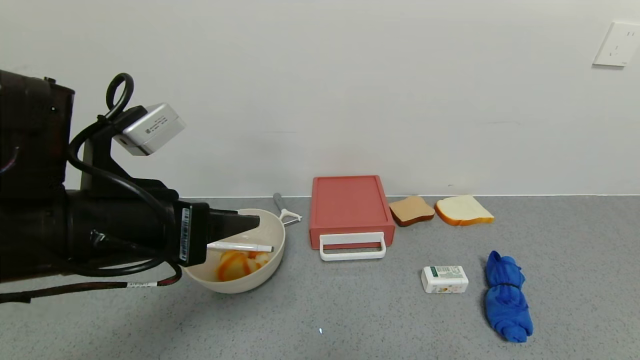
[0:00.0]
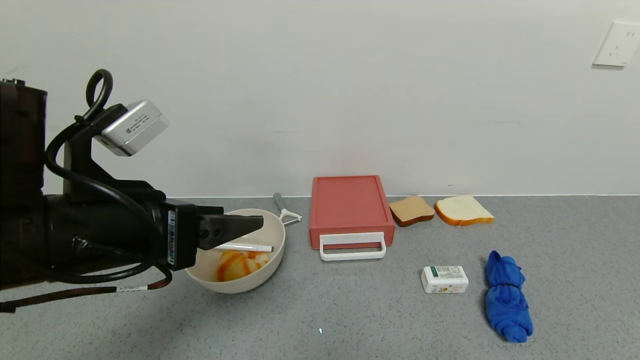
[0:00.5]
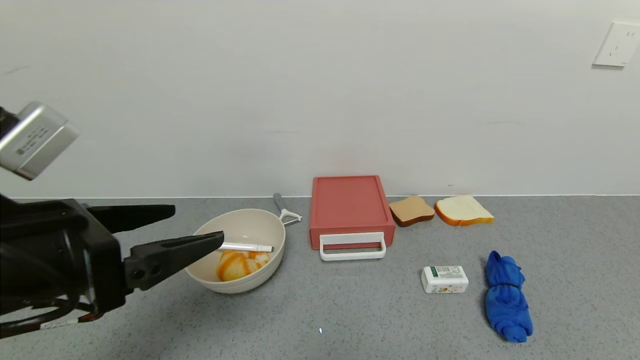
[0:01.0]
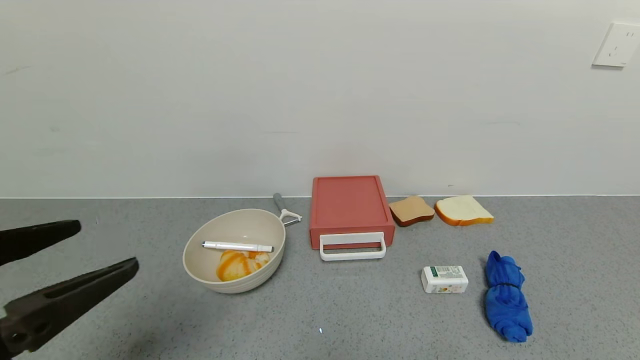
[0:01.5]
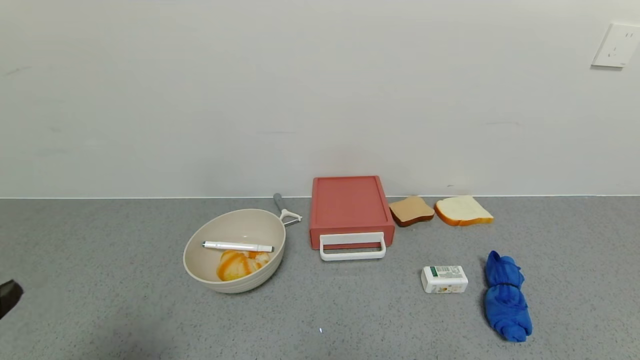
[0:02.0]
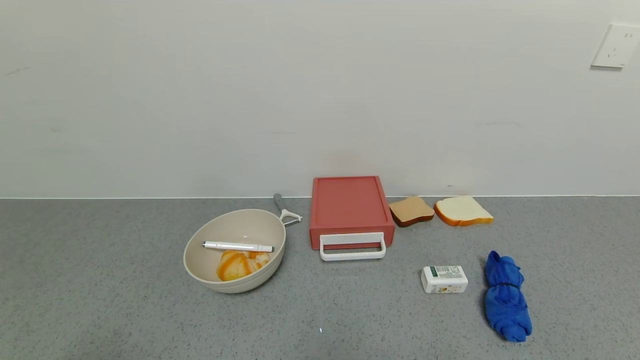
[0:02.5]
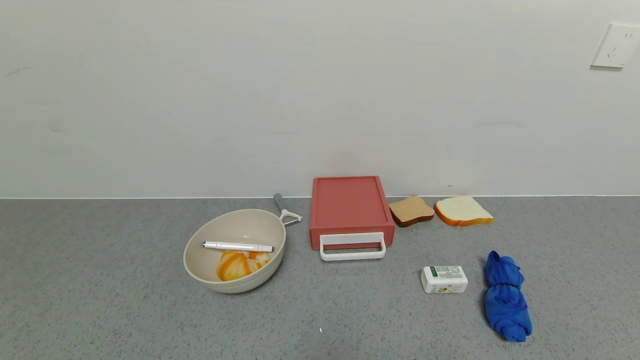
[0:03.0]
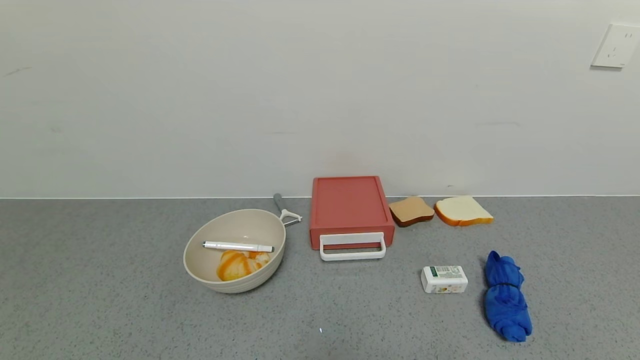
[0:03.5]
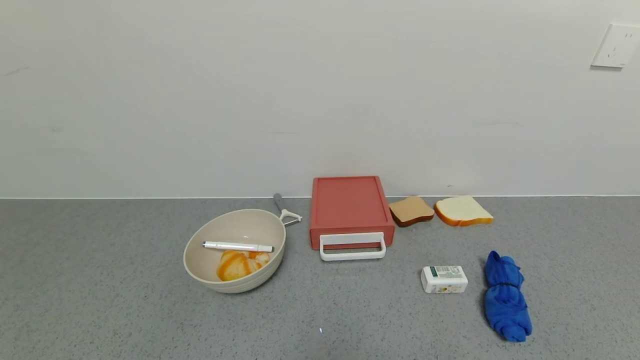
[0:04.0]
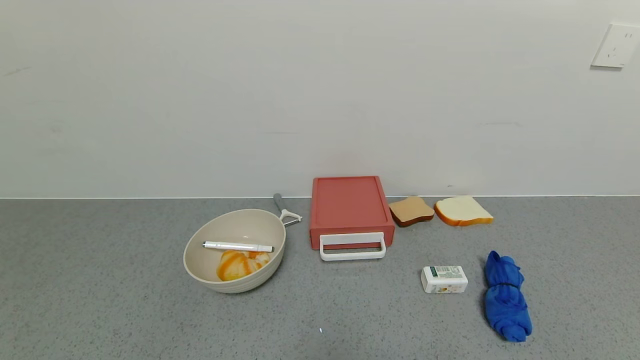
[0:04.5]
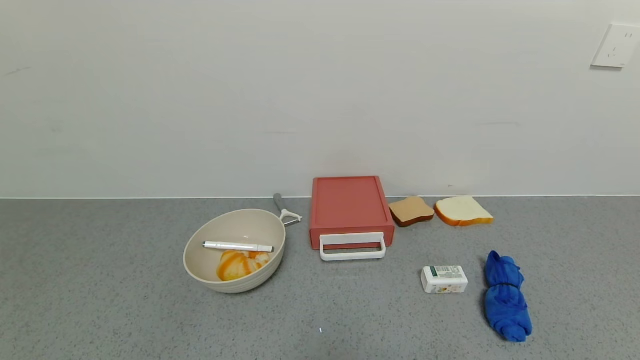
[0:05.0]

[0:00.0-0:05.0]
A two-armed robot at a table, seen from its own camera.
Task of the whole recording: use the gripper to open the drawer and close the red drawer.
0:00.0 to 0:02.5: The left gripper travels backward and to the left by roughly 25 cm, and opens.
